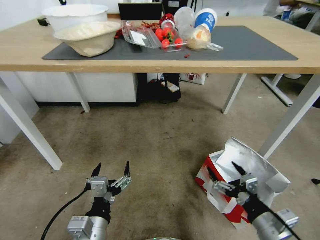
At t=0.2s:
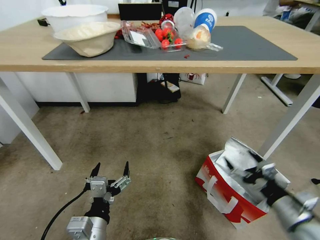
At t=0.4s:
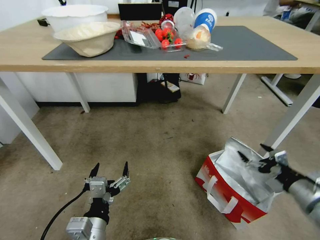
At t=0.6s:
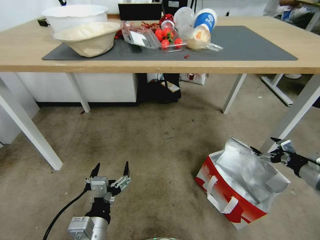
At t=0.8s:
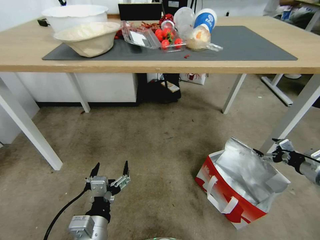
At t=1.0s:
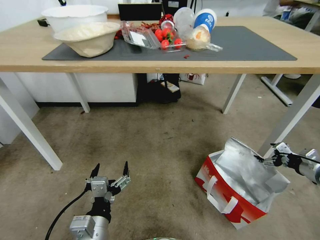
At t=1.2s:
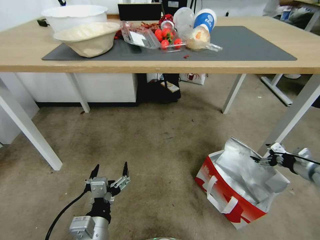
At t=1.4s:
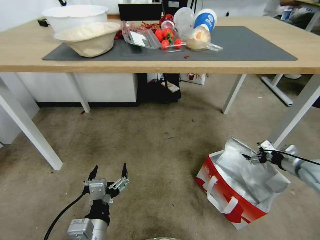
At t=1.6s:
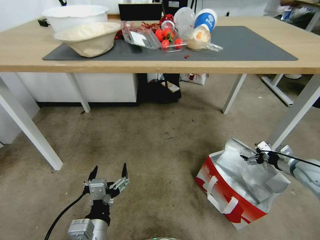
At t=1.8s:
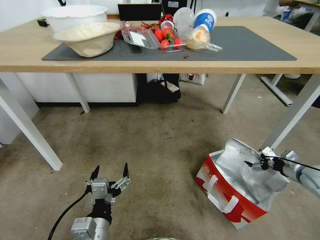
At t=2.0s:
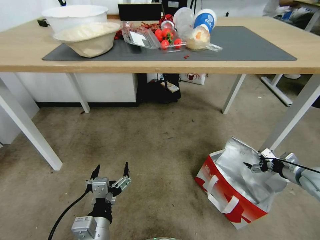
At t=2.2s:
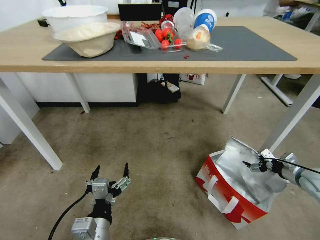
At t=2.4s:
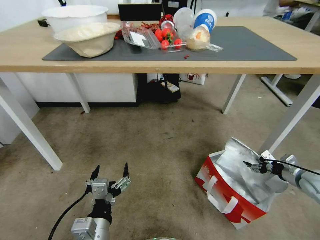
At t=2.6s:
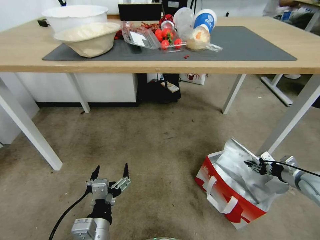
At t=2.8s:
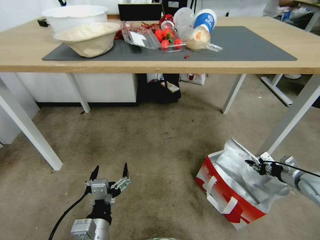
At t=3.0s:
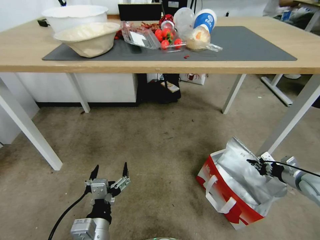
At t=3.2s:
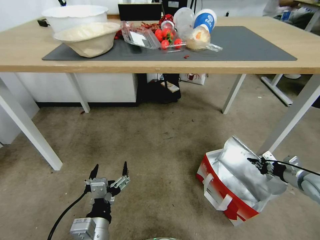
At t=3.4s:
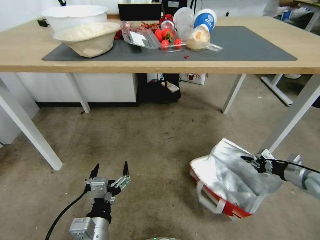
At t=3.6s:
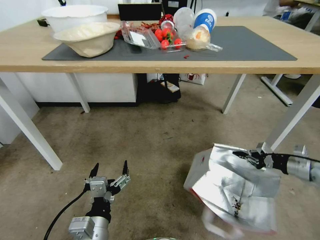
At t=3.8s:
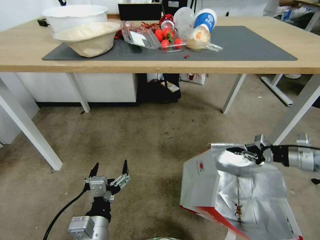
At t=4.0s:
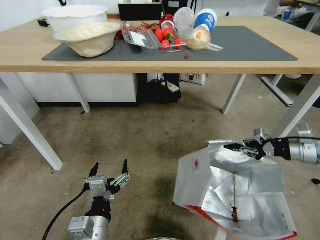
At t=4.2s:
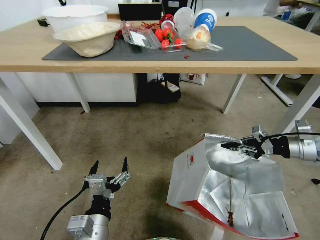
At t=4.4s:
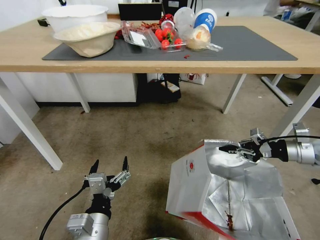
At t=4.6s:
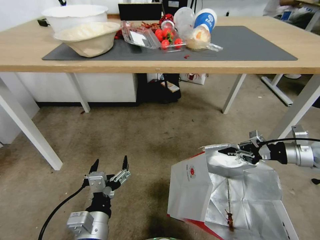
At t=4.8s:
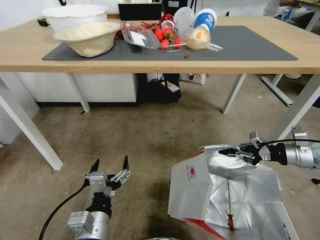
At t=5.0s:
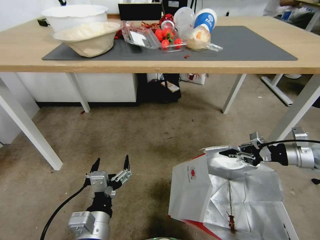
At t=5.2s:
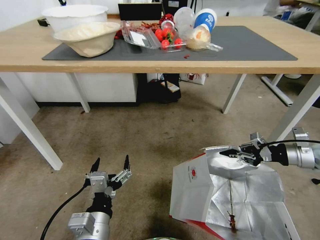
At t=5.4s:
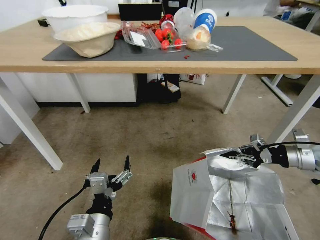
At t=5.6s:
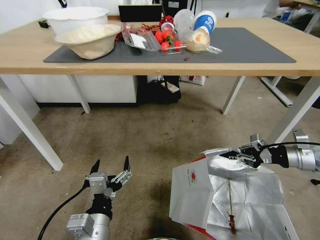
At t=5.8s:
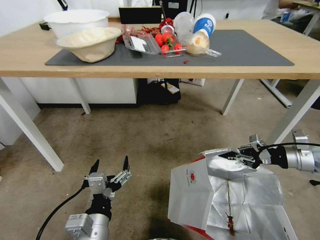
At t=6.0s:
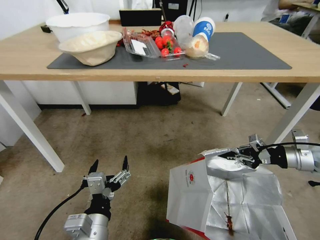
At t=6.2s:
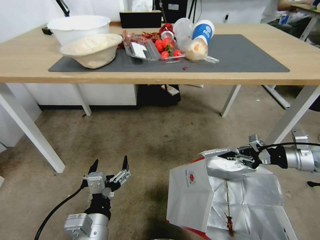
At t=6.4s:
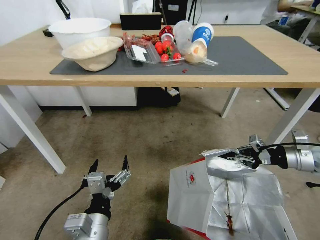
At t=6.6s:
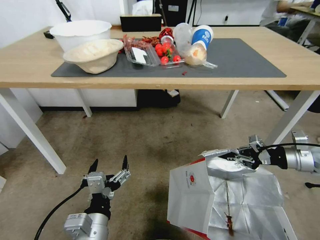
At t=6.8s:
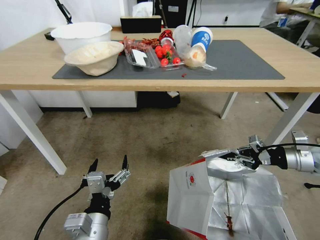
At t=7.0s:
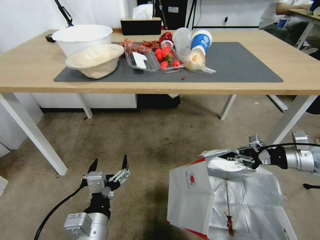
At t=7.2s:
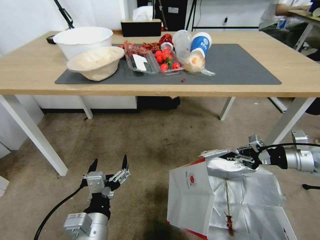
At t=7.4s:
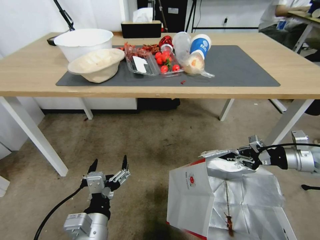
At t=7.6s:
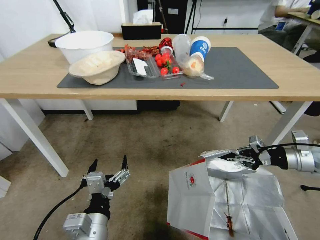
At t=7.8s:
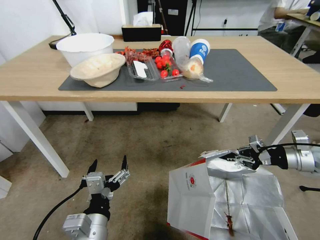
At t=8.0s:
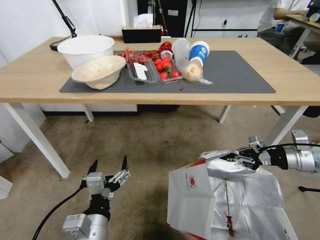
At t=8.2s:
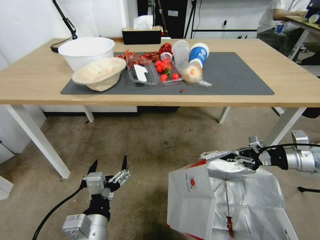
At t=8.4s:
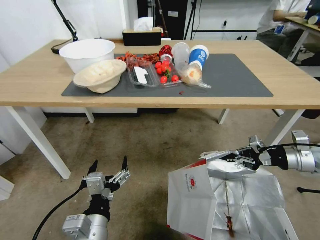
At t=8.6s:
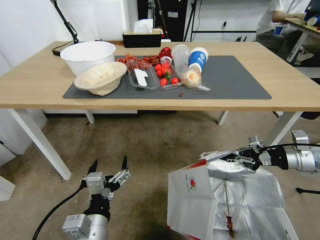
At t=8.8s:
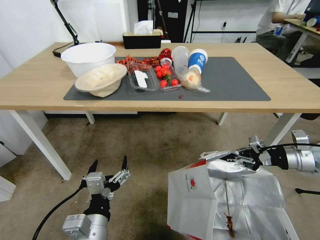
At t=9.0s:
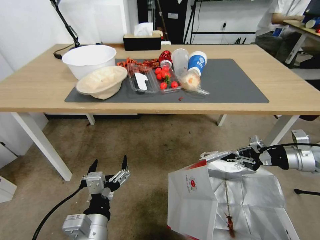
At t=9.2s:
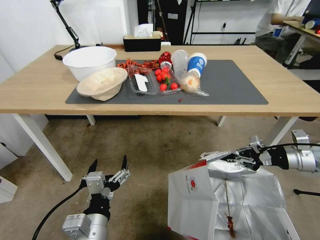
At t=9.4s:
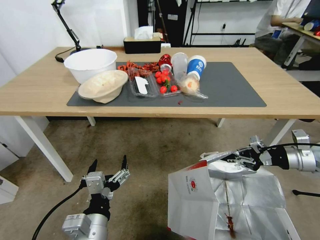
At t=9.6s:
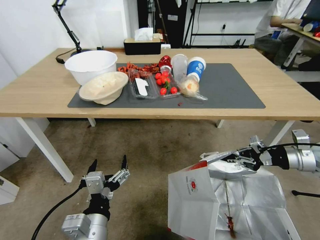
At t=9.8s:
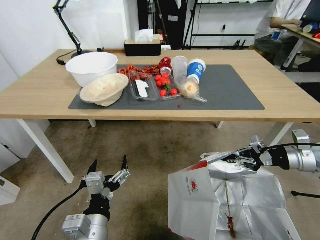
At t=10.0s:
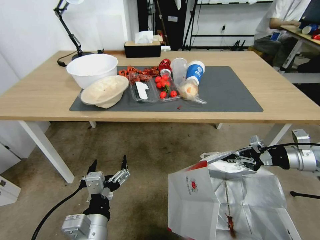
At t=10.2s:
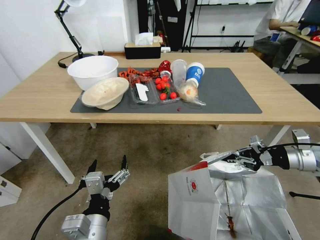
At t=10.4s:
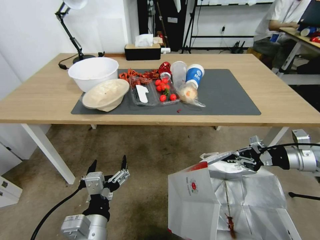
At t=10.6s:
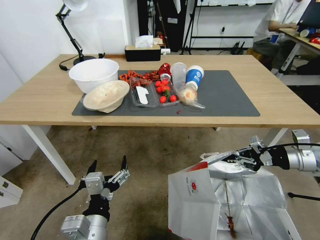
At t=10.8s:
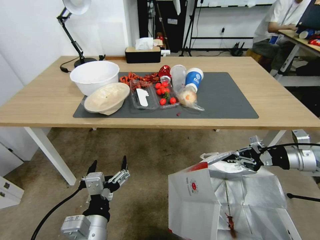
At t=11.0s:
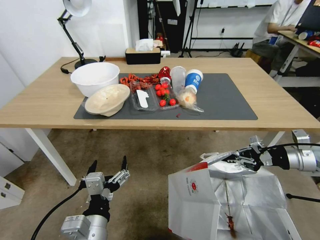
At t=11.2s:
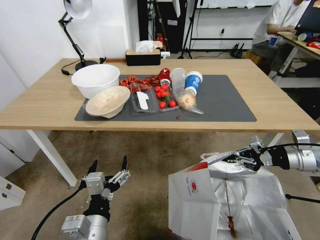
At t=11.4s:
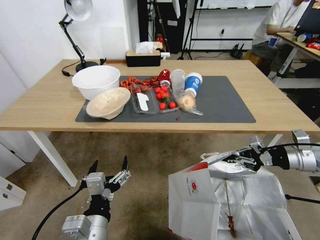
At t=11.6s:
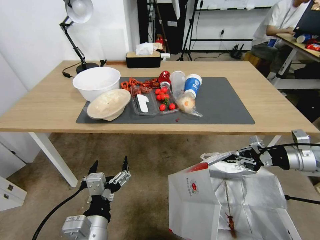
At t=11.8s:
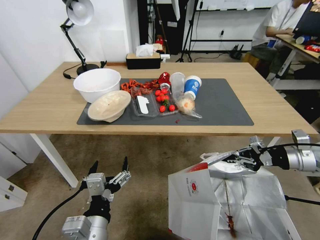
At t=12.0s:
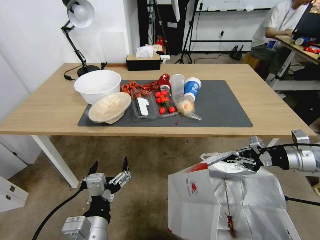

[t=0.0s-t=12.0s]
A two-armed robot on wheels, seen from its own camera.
Task of the whole recording: Pick up the food delivery bag from the floor and place it on the table.
t=0.0s to t=1.6s: The right gripper heads forward and to the right, covering about 30 cm.
t=1.6s to t=3.0s: The right gripper closes its fingers.
t=3.0s to t=4.4s: The right gripper heads upward, covering roughly 15 cm.

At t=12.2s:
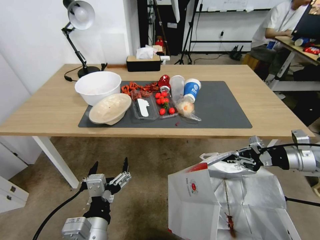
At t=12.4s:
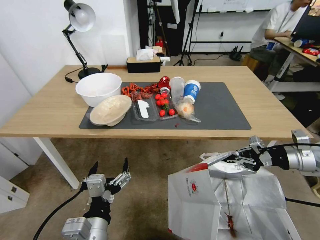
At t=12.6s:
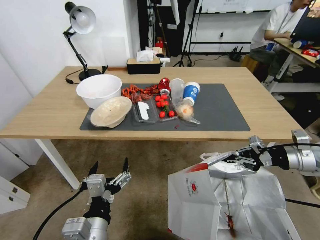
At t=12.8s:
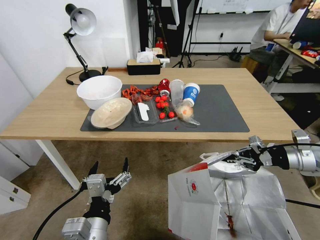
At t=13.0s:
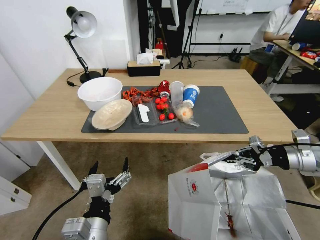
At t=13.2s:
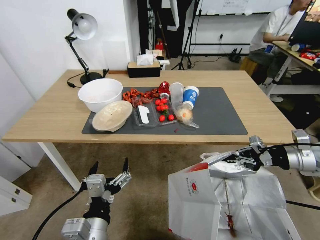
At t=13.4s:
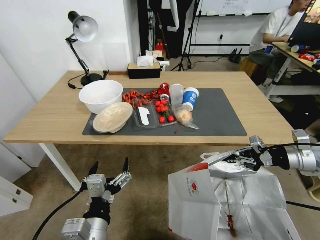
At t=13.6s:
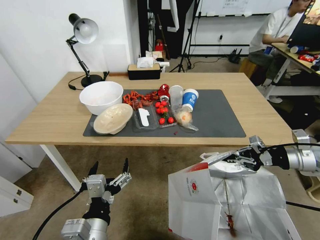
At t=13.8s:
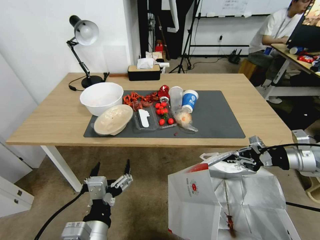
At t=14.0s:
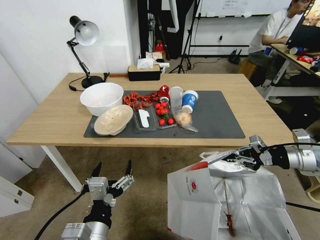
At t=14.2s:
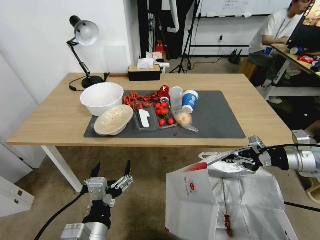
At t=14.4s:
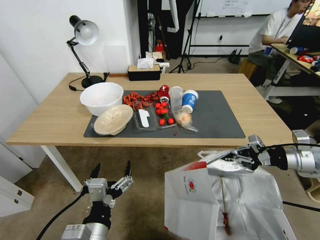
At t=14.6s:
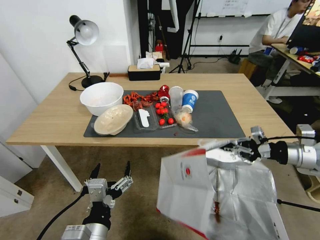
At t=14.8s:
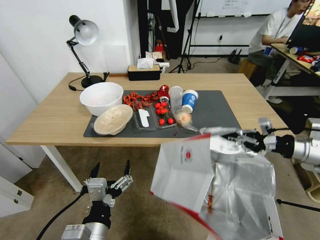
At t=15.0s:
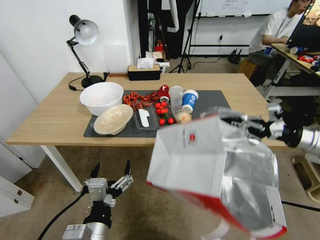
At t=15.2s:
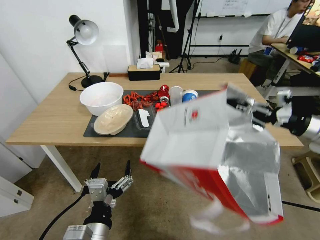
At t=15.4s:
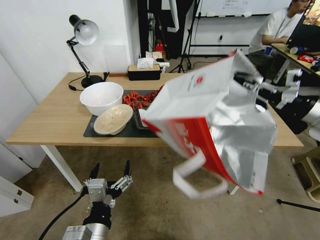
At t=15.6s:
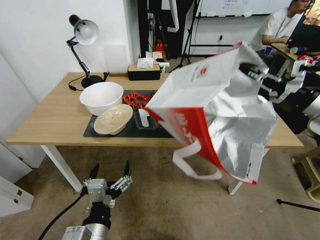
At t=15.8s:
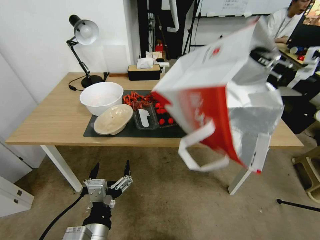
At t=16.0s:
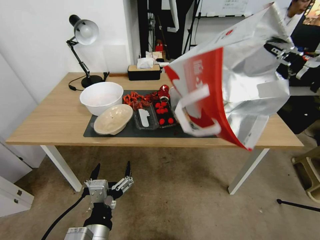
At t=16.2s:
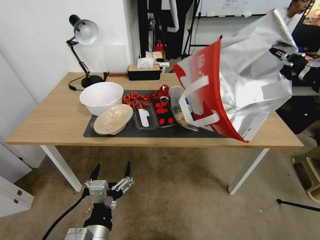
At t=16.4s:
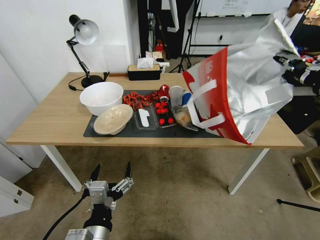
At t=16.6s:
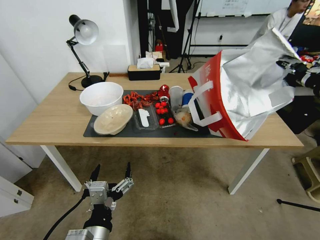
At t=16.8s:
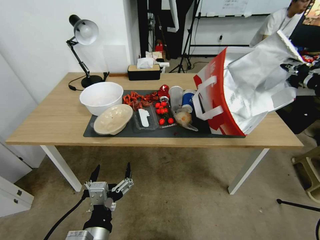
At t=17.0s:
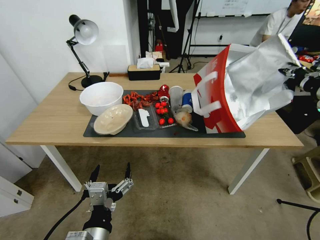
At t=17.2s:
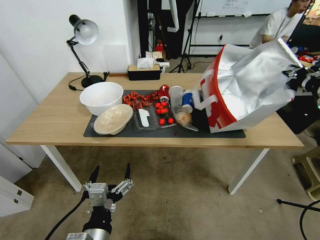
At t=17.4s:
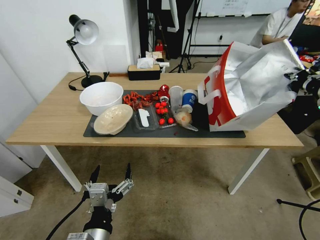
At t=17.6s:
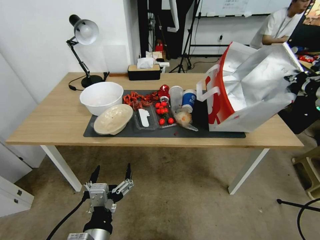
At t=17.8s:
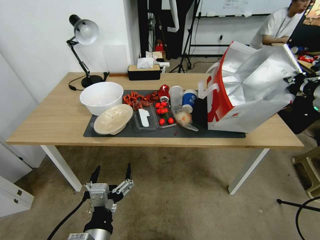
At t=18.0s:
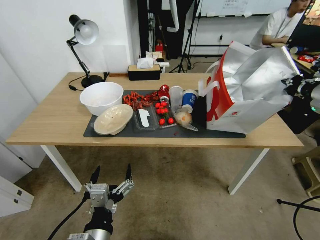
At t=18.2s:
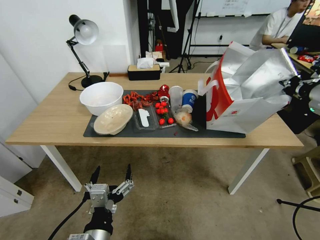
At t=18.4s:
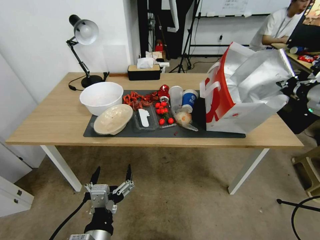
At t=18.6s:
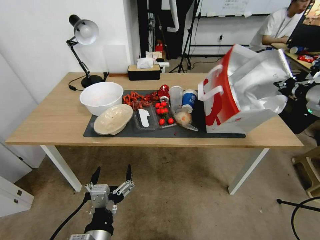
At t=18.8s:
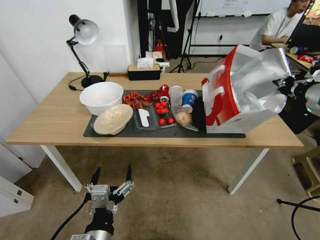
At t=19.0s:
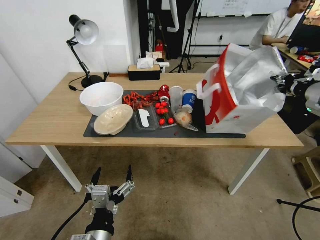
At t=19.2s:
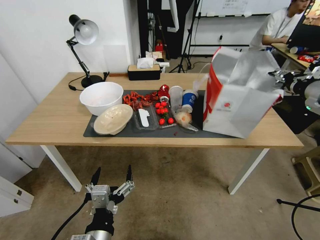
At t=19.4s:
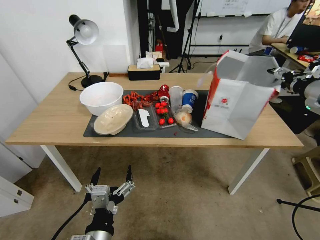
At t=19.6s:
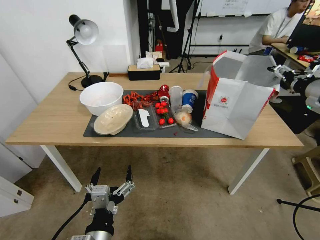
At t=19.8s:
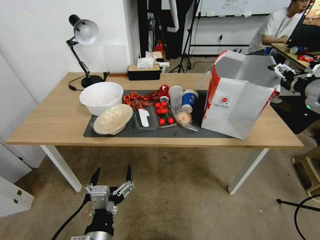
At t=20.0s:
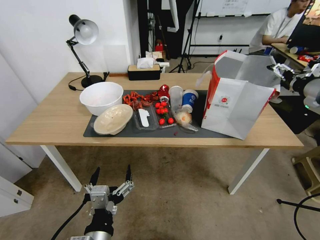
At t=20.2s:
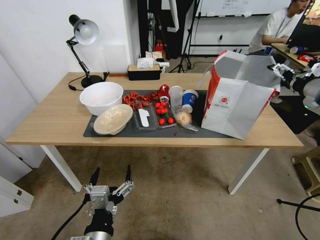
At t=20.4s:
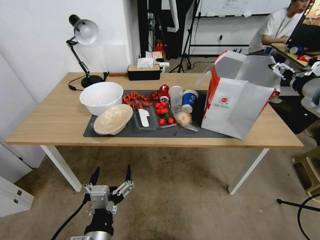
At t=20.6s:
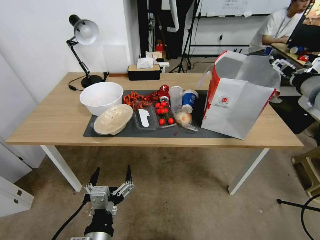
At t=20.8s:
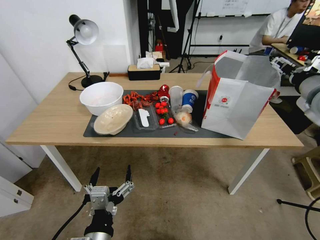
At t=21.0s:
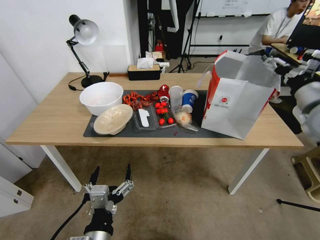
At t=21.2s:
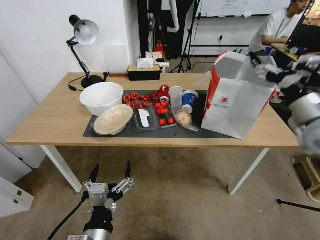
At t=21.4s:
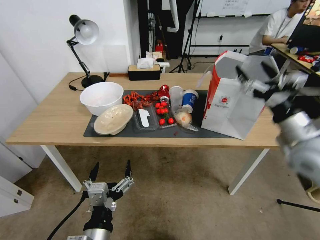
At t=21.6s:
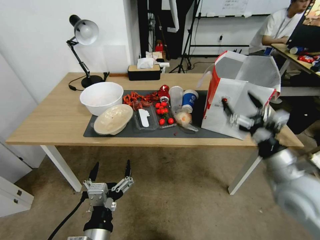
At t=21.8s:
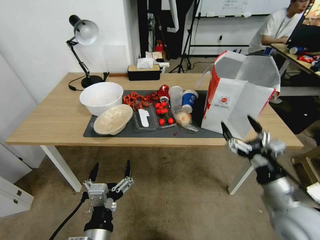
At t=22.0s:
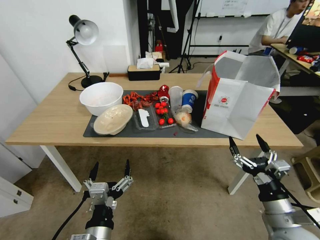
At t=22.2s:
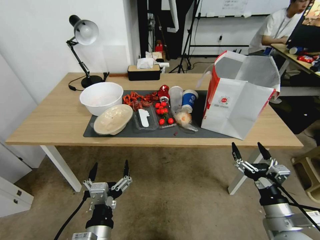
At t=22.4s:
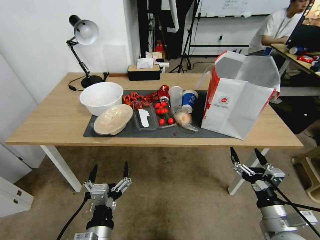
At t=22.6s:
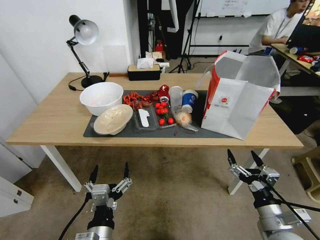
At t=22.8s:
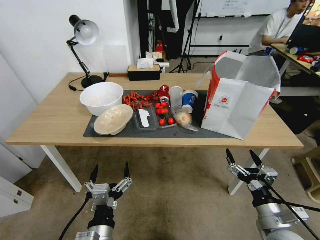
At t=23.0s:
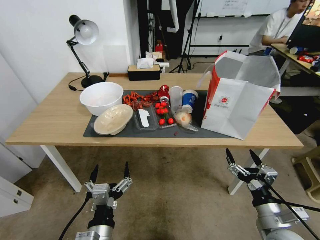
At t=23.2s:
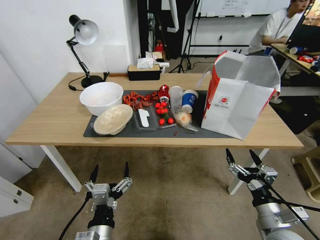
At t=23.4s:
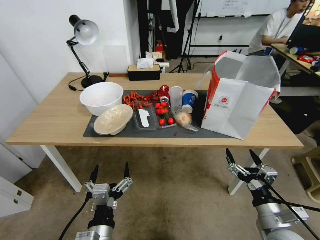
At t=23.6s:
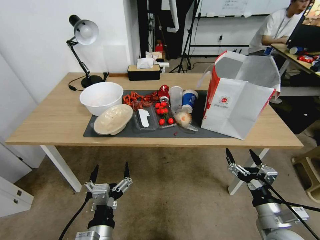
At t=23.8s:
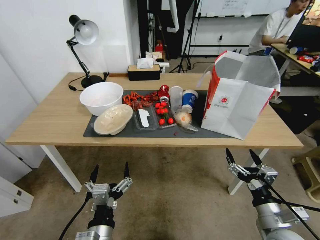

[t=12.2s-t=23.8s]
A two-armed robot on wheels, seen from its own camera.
Task of the whole recording: Pick up the food delivery bag from the floor and place it on the table.
t=13.6s to t=15.0s: The right gripper heads upward, covering some 5 cm.
t=15.0s to t=16.6s: The right gripper heads upward, covering roughly 10 cm.
t=18.0s to t=19.4s: The right gripper opens its fingers.
t=19.4s to t=21.0s: The right gripper moves to the left, some 5 cm.
t=21.0s to t=22.4s: The right gripper shifts roughly 35 cm downward and backward.
t=22.4s to t=23.8s: Both grippers stay put.
